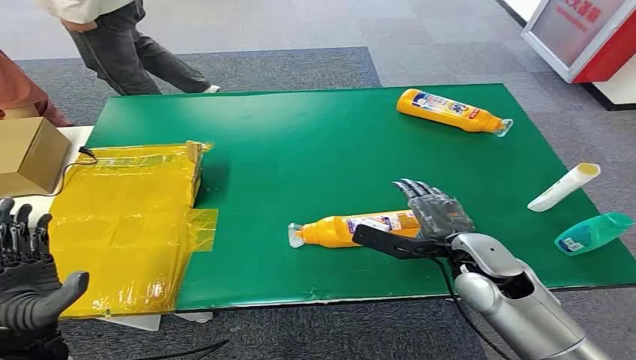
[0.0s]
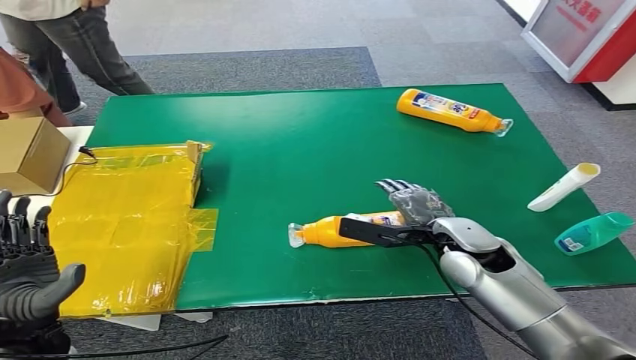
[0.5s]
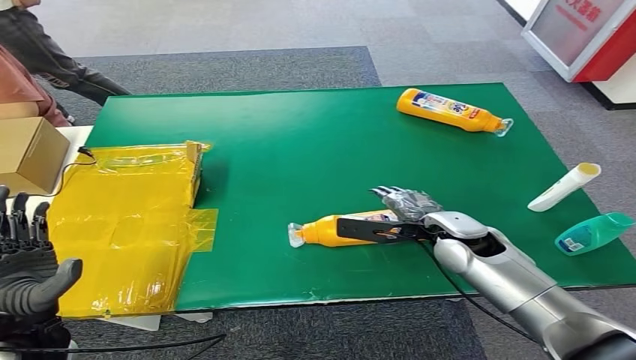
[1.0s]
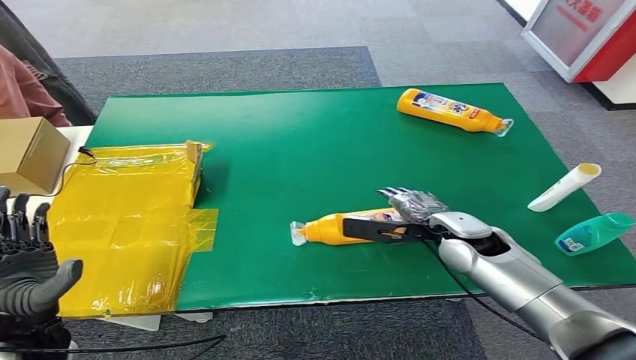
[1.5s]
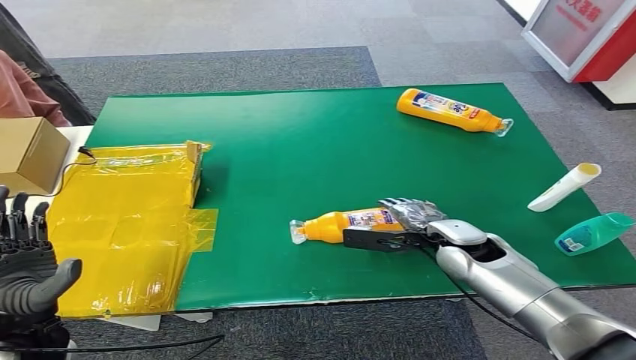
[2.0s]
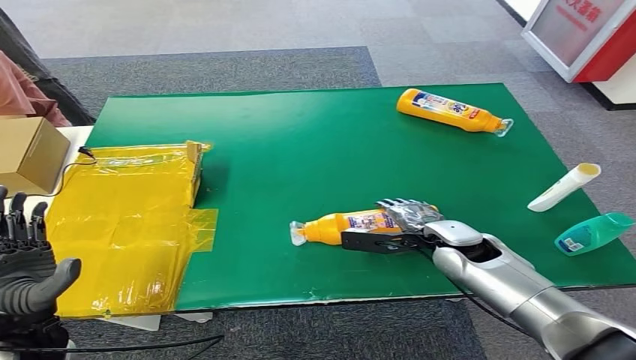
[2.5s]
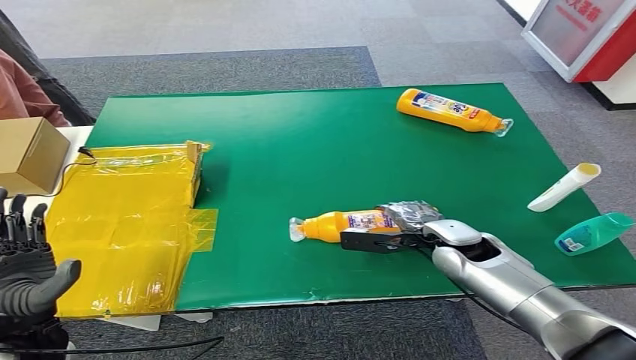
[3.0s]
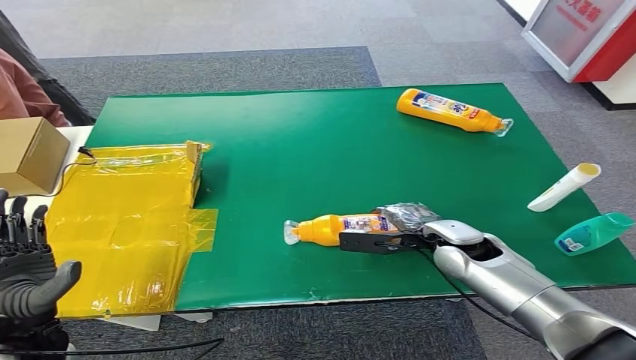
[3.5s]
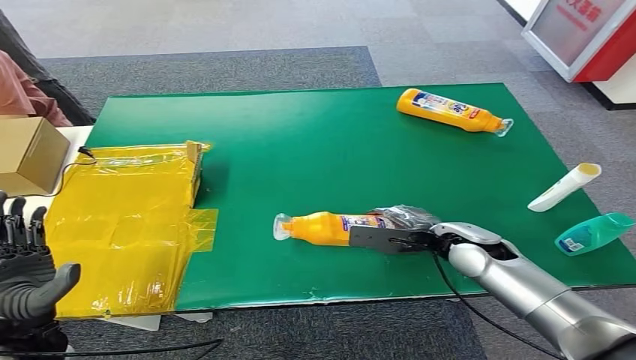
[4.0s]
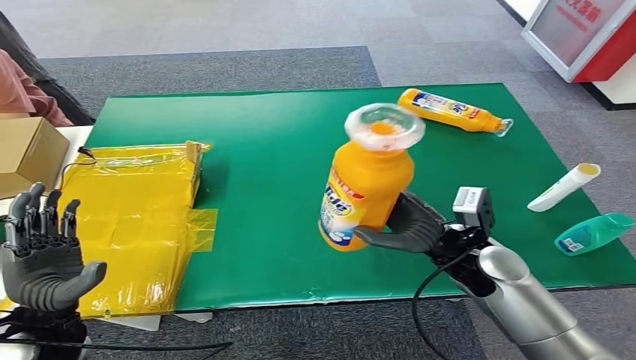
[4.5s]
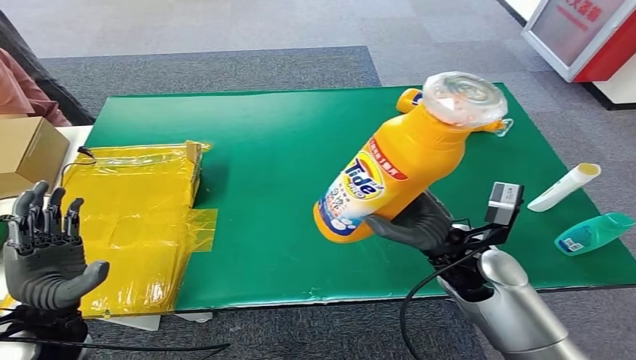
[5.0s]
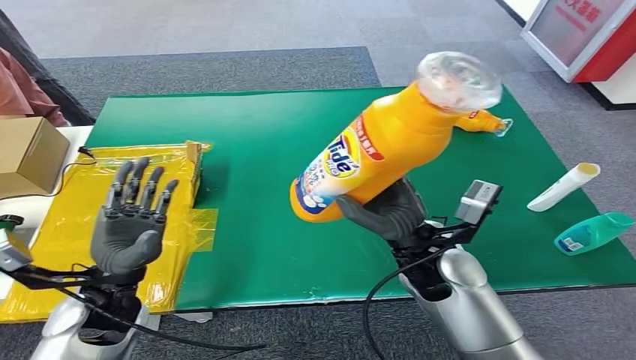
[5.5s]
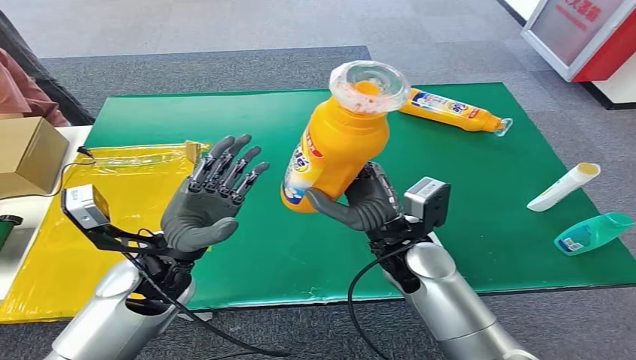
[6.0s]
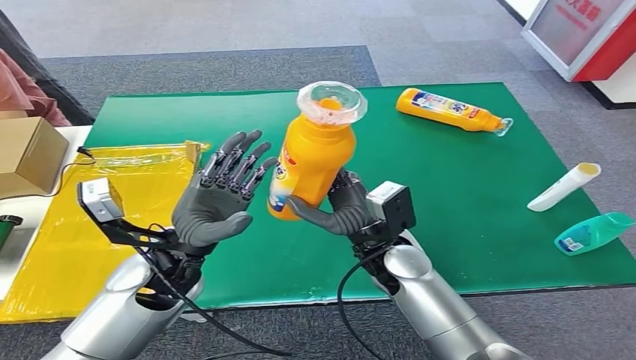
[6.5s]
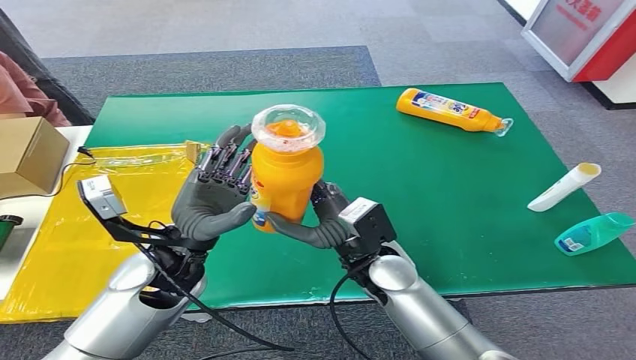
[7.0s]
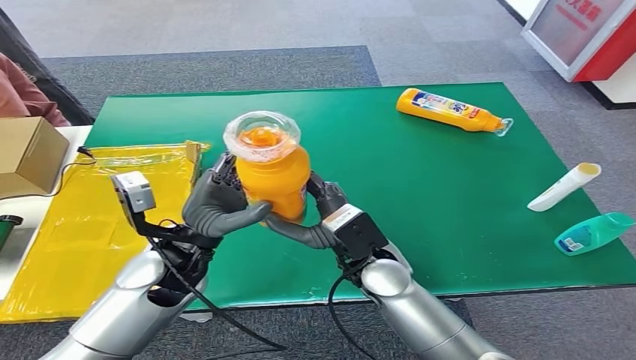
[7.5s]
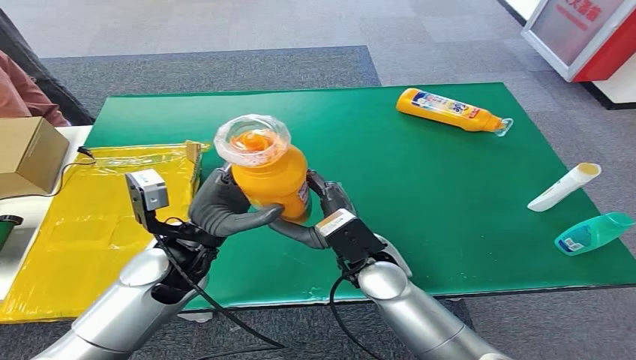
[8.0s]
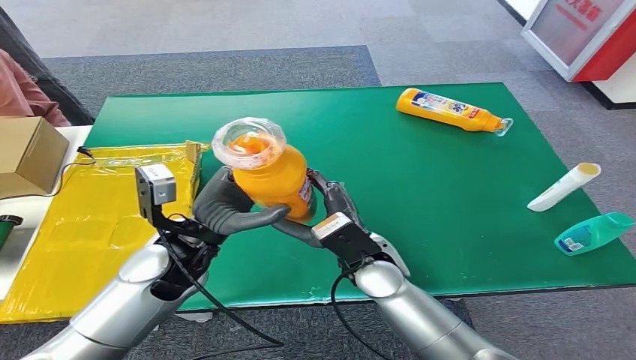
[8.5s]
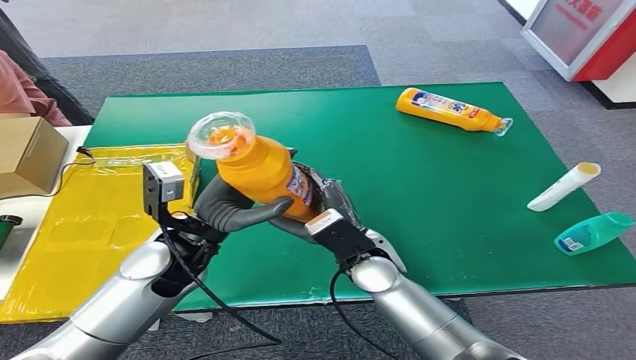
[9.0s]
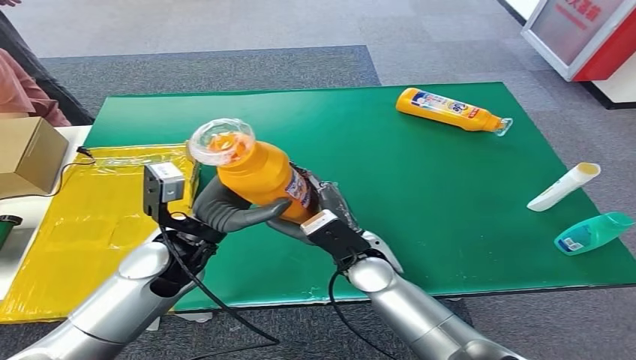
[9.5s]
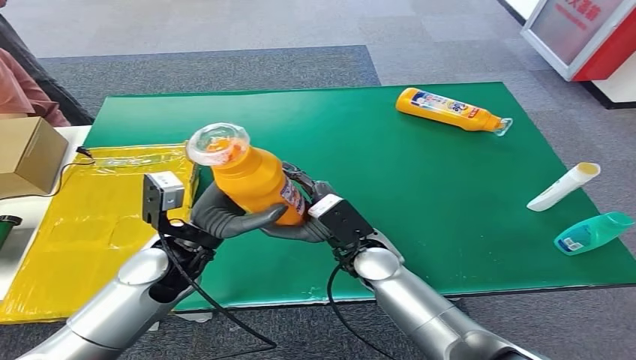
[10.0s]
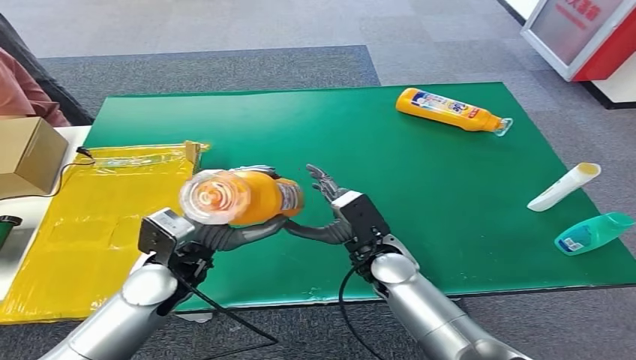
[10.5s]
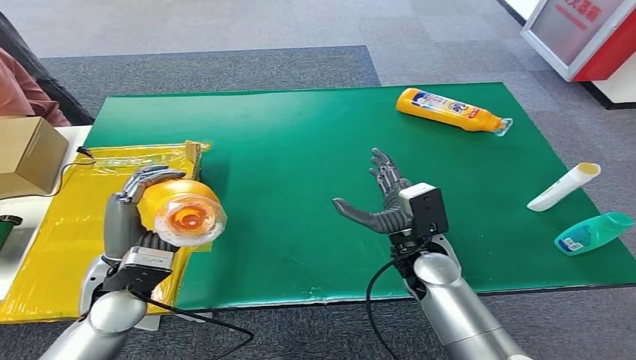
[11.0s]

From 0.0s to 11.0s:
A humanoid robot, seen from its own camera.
Step, from 0.0s to 5.0s: Pick up the bottle from the table.
From 2.0s to 3.5s: The two hands keep their place.
From 7.5s to 9.0s: The hands make only small movements.

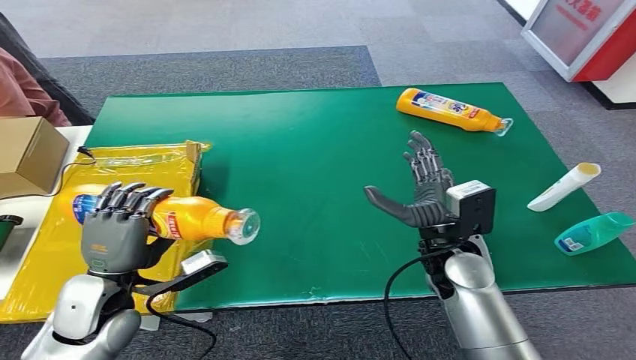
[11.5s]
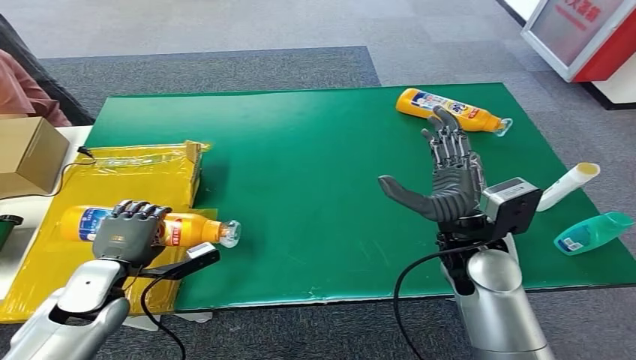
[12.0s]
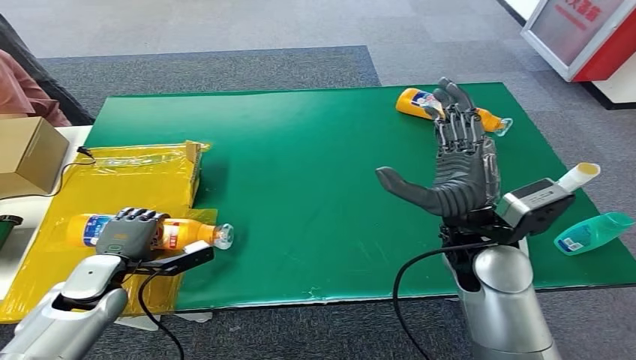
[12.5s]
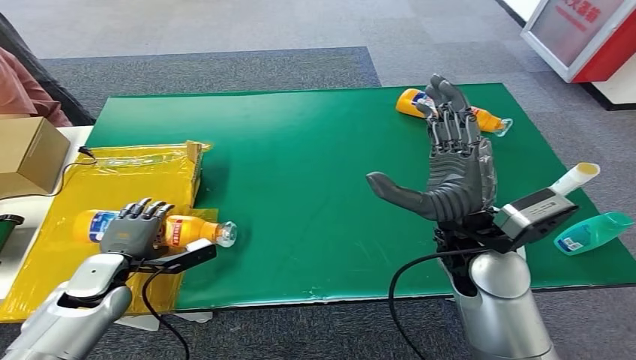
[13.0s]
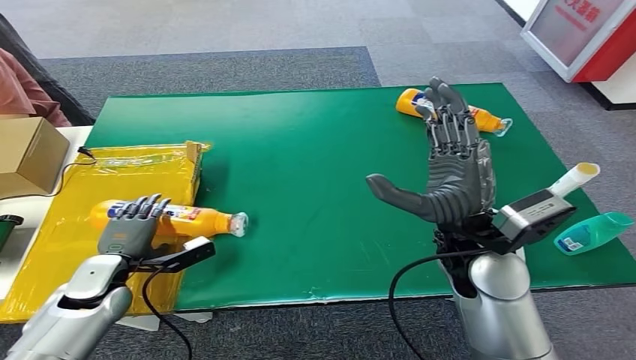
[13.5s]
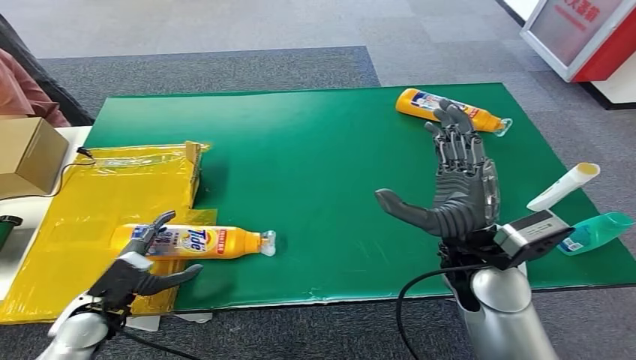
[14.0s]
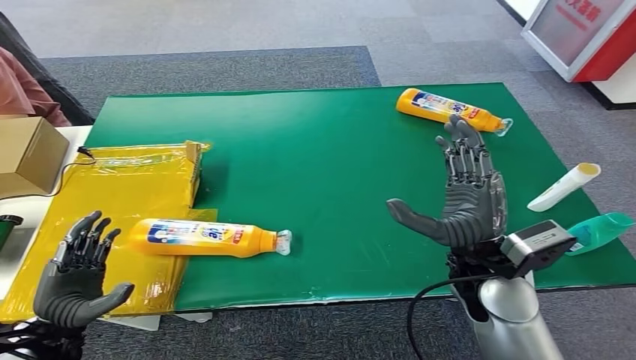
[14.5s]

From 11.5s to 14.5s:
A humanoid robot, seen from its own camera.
Step, from 11.5s to 14.0s: Turn the bottle to the front side.
From 11.5s to 13.0s: The right hand goes roughly 10 cm upward. The left hand goes some 10 cm downward, to the left and forward.
From 13.0s to 14.5s: The left hand shifts about 10 cm backward; the right hand ends up roughly 5 cm from where it was.
